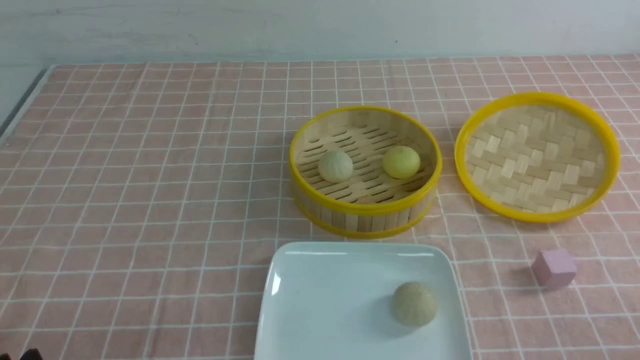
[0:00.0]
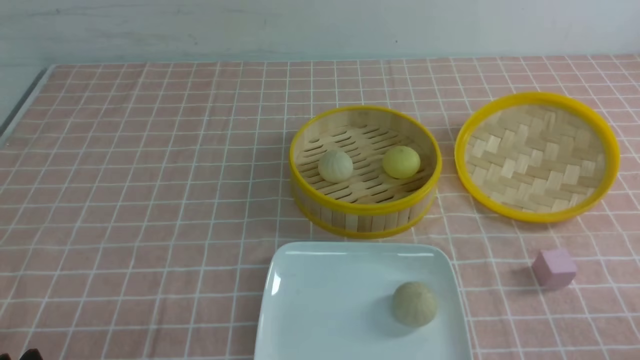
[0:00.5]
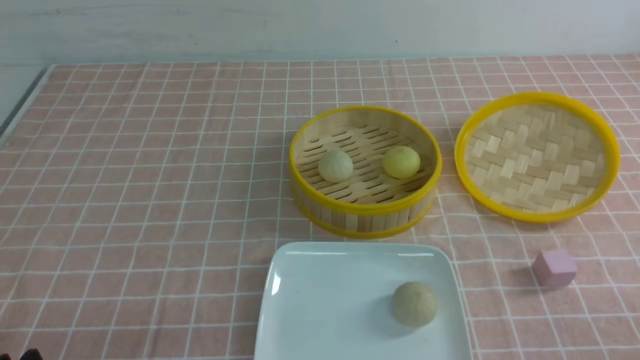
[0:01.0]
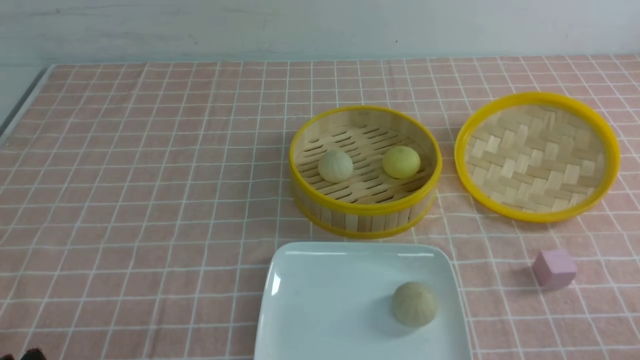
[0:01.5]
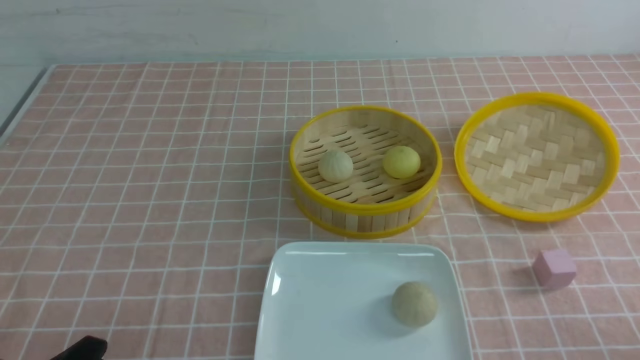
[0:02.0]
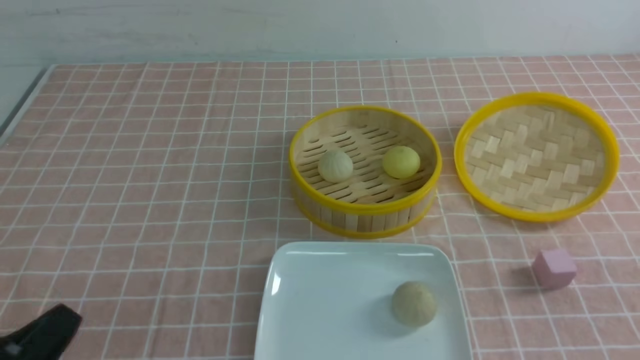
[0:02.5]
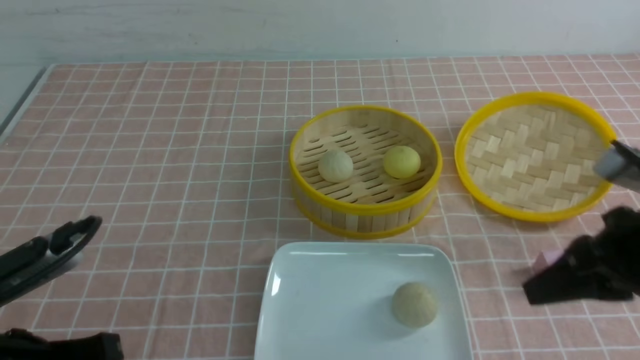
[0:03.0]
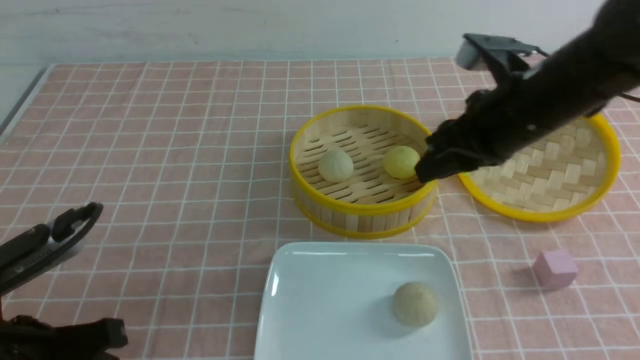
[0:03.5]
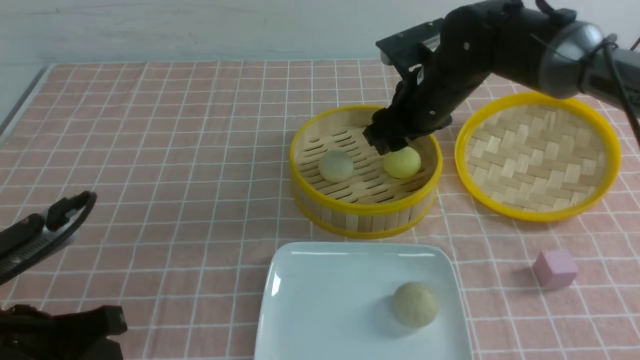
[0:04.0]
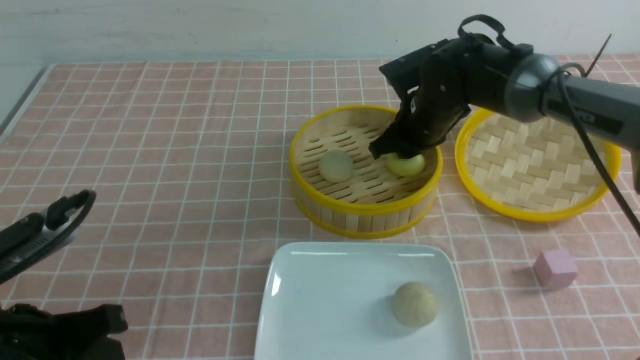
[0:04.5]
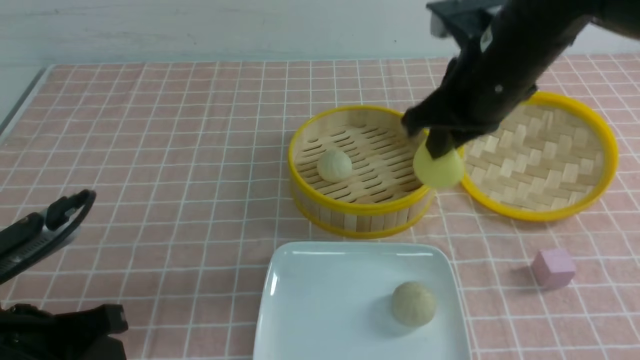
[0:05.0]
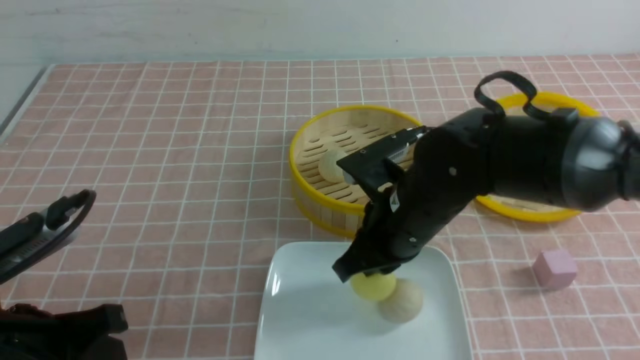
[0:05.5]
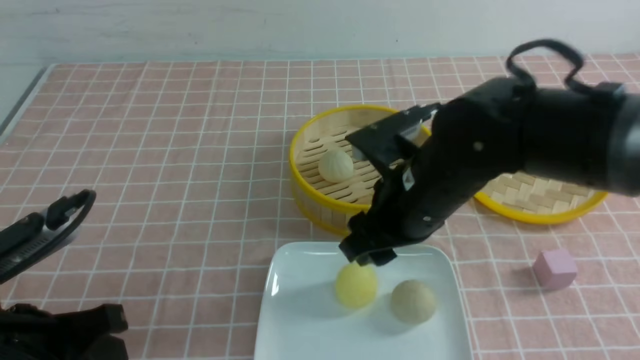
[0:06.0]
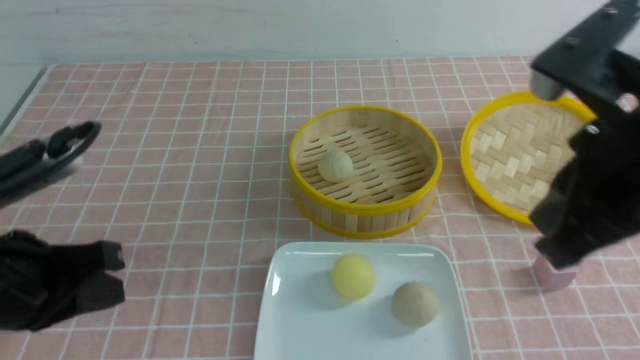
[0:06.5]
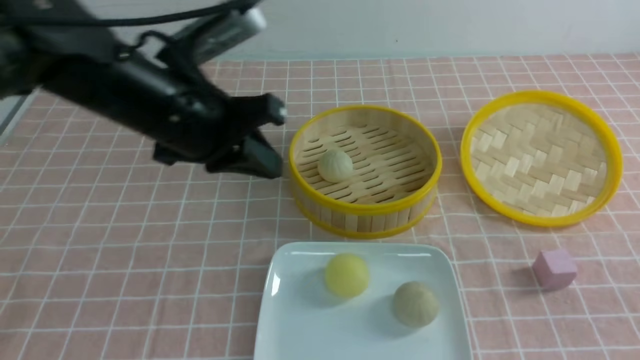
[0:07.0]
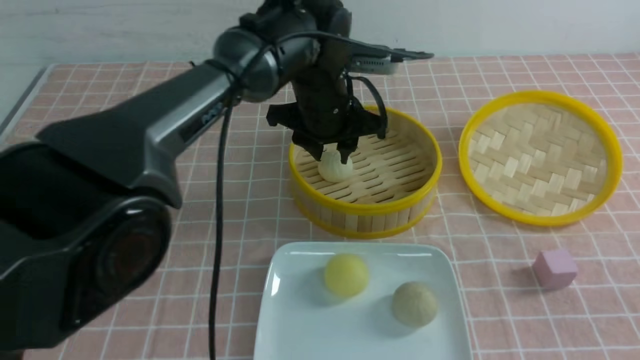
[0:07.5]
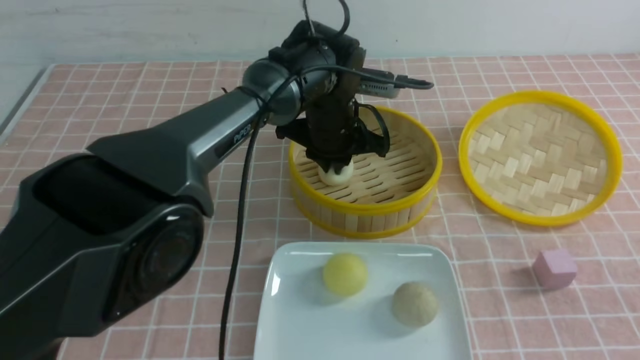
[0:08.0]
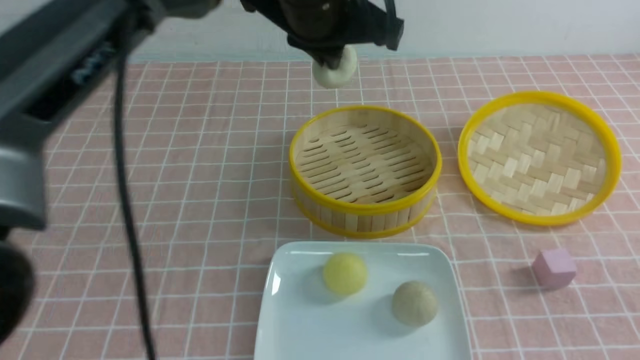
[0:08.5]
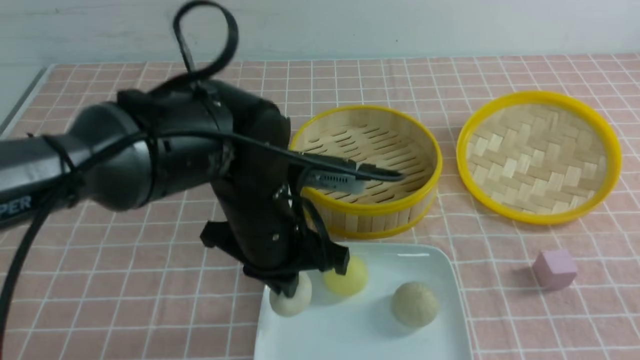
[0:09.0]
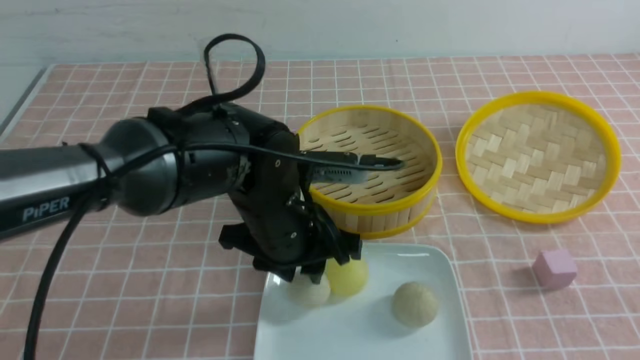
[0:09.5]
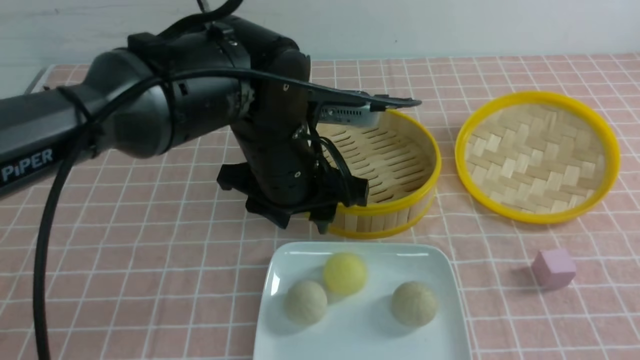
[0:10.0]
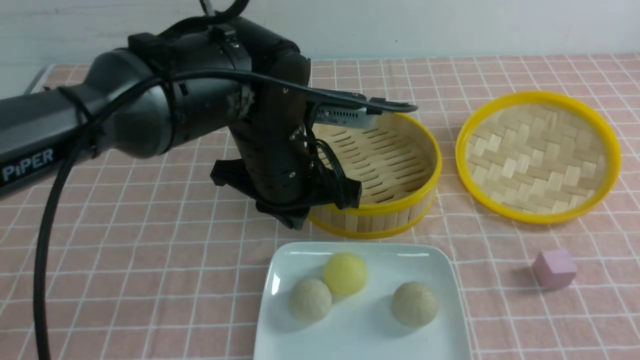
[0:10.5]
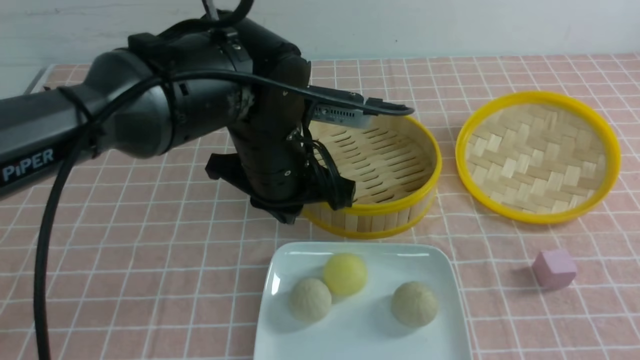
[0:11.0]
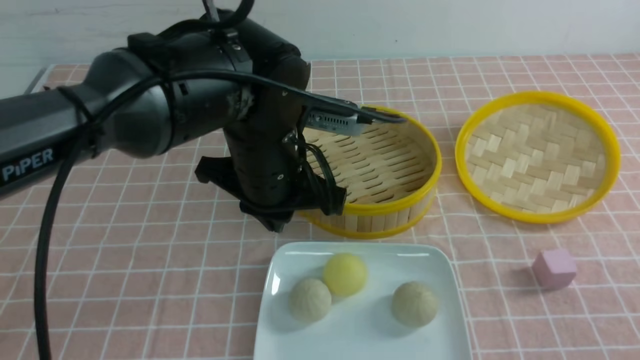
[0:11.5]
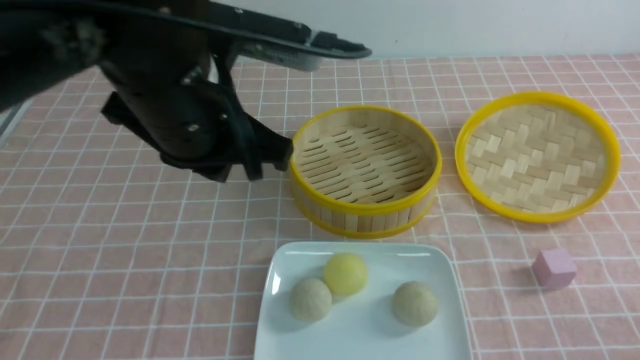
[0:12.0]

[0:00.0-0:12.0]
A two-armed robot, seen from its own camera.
Step, 0:00.0 to 0:04.5: use the right arm to grab the steamed stuffed bun that is closest to it.
Step, 0:05.0 to 0:05.5: use the right arm to put the steamed stuffed bun into the plate.
Step, 0:06.0 to 0:08.0: use the left arm to grab the steamed stuffed bun that is closest to it.
Step, 0:08.5 to 0:09.5: use the left arm to put the steamed stuffed bun into the plate.
0:02.0 to 0:04.0: The left gripper moves forward and upward, roughly 10 cm, and closes its fingers, while the right gripper is displaced forward and to the left by roughly 40 cm, and opens its fingers.
0:04.0 to 0:06.0: The right gripper shifts some 15 cm backward, and closes, then reopens.
0:06.0 to 0:08.0: The right gripper heads backward and to the right, covering roughly 25 cm, and closes up, while the left gripper moves forward and to the right, some 40 cm, and opens and closes again.
0:08.0 to 0:10.0: The right gripper goes about 10 cm backward and to the right. Meanwhile the left gripper heads backward, covering roughly 15 cm, and opens up.
0:10.0 to 0:12.0: The right gripper goes roughly 20 cm downward, while the left gripper travels upward and to the left by approximately 10 cm, and closes.

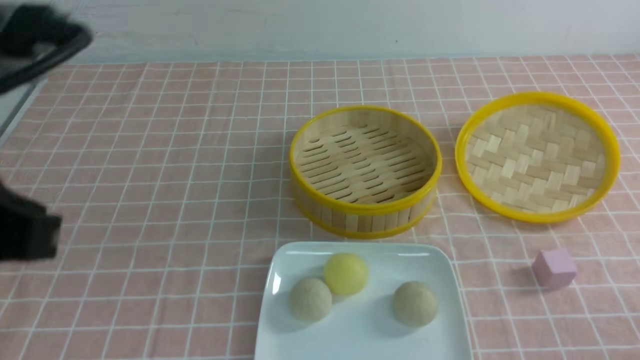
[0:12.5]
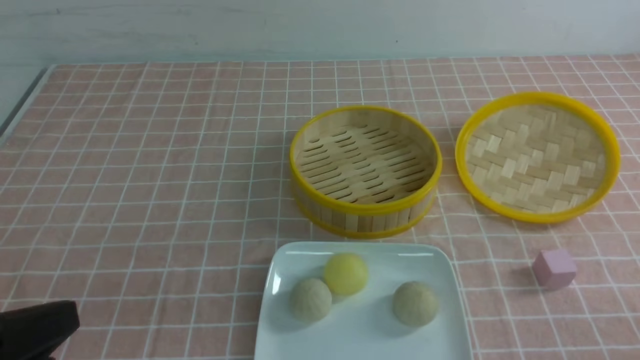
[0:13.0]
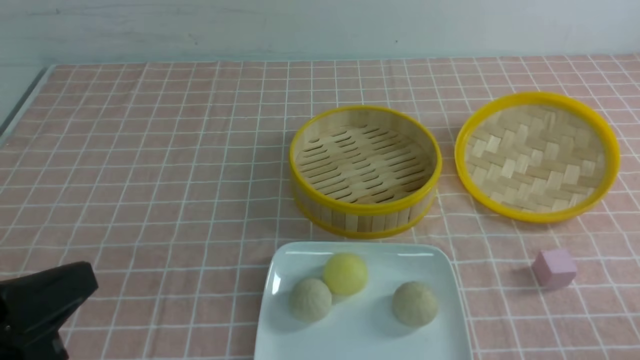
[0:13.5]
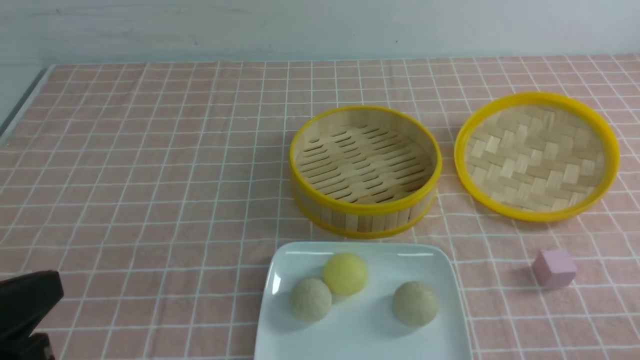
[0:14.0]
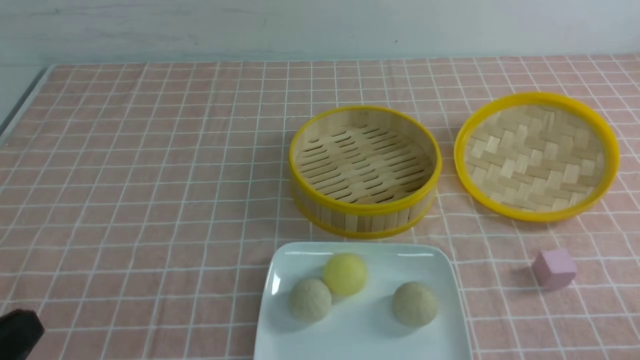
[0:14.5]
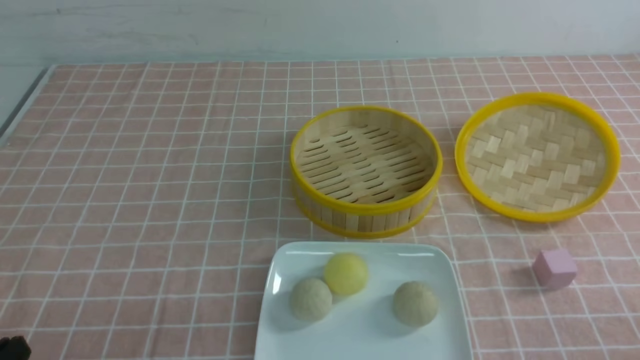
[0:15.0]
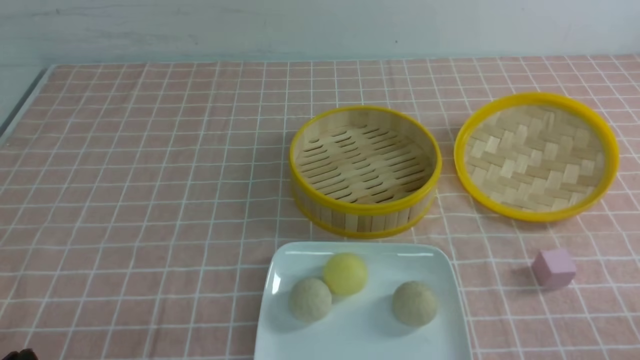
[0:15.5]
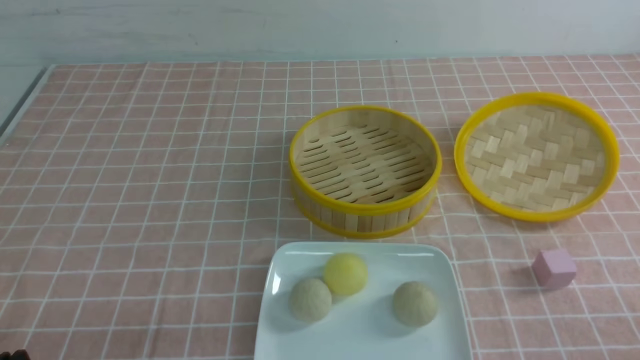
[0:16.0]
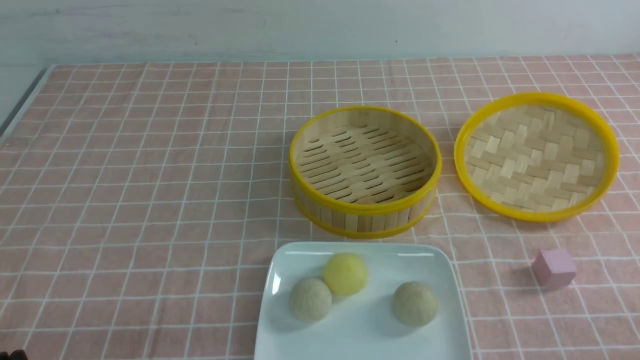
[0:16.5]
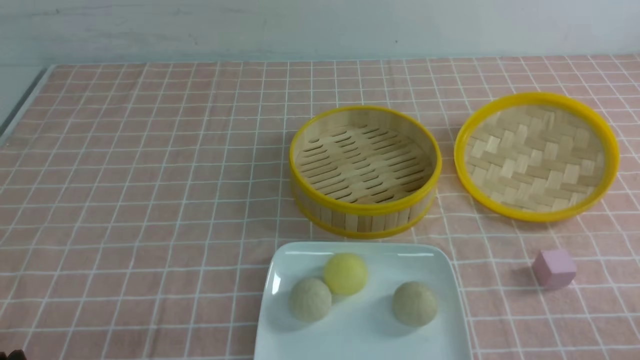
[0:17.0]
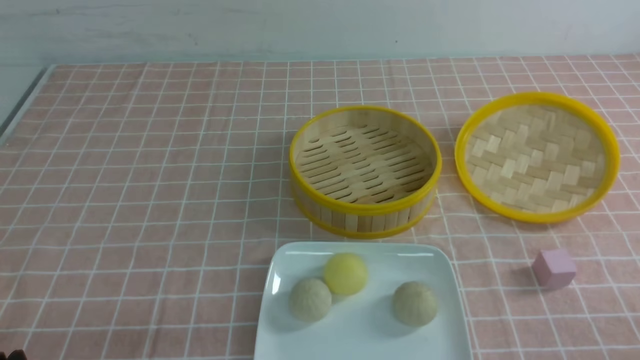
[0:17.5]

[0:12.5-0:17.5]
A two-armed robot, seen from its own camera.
0:12.5 to 0:15.0: The left gripper shifts about 20 cm downward.
